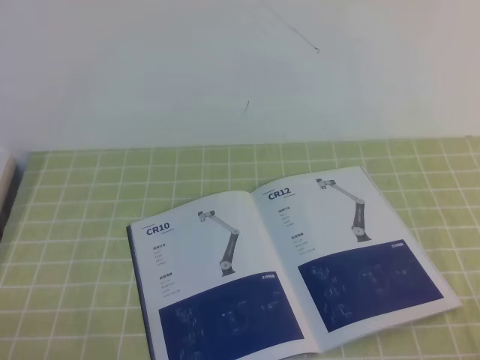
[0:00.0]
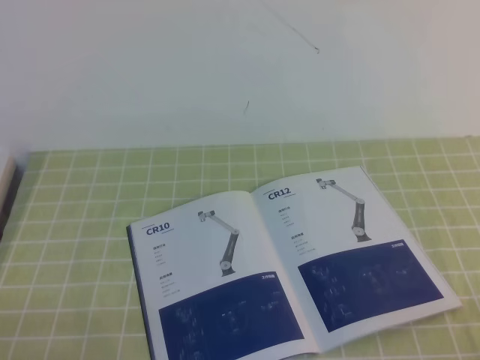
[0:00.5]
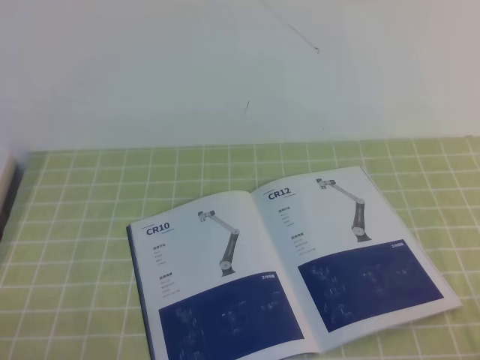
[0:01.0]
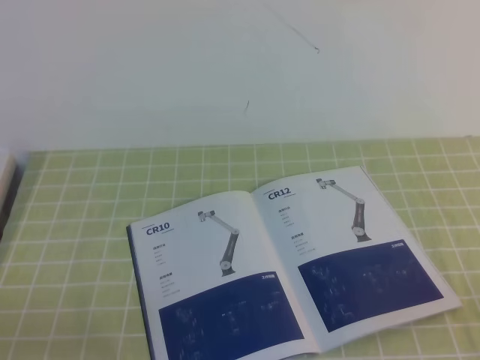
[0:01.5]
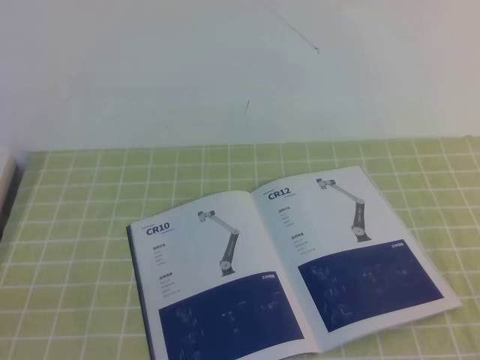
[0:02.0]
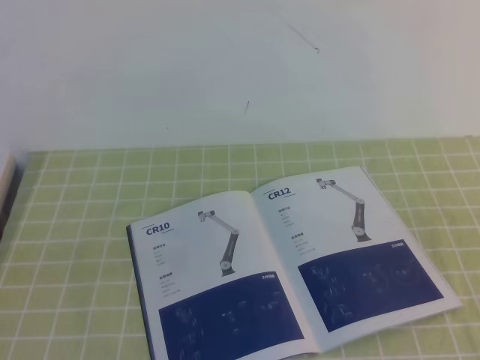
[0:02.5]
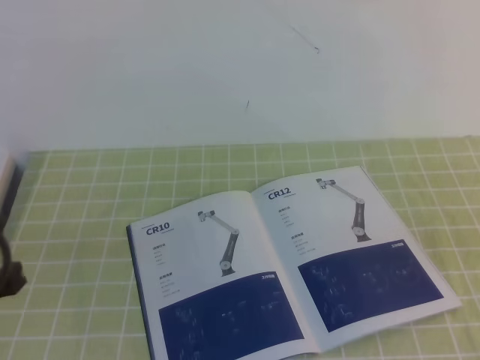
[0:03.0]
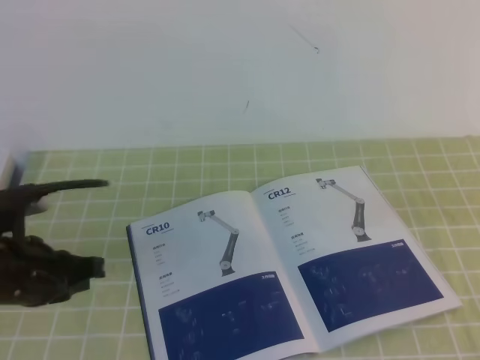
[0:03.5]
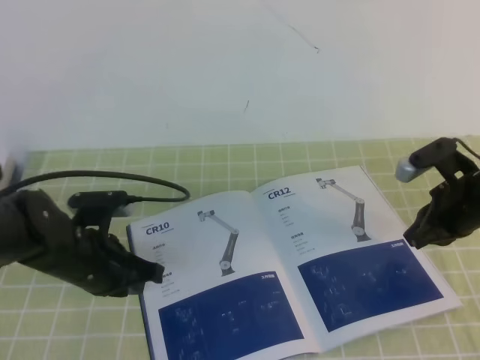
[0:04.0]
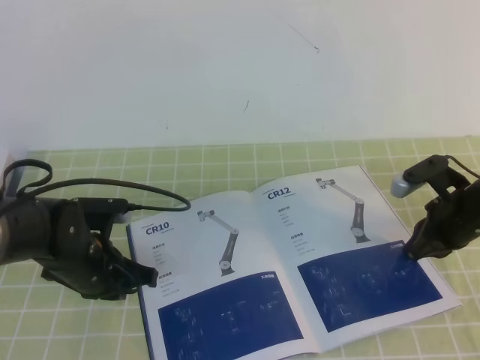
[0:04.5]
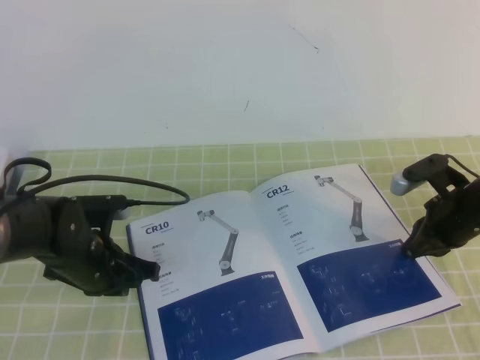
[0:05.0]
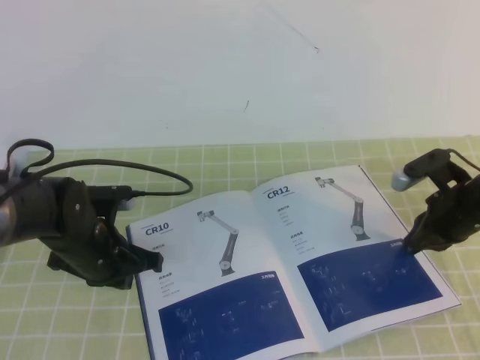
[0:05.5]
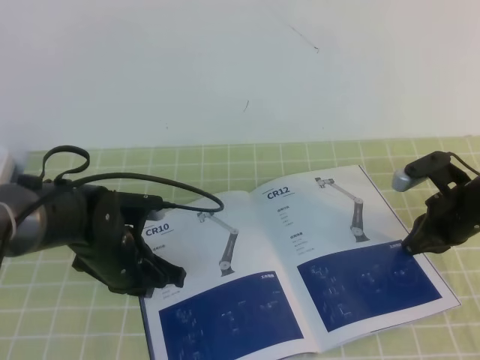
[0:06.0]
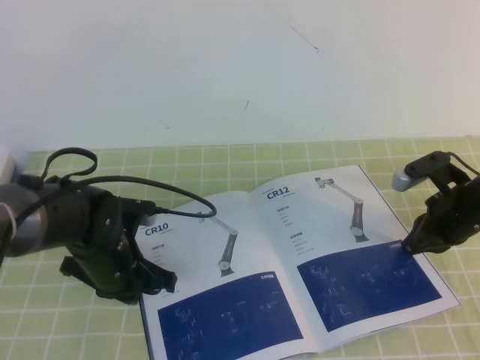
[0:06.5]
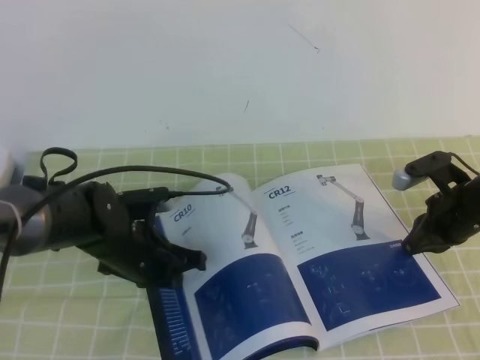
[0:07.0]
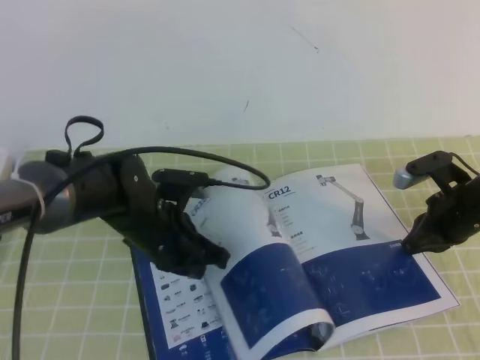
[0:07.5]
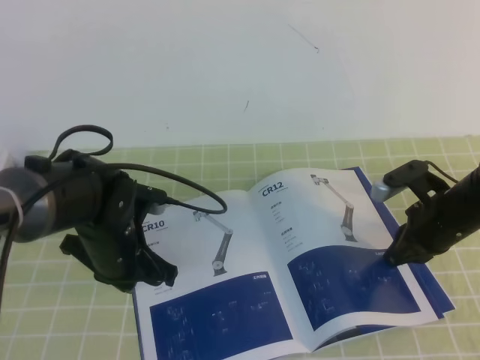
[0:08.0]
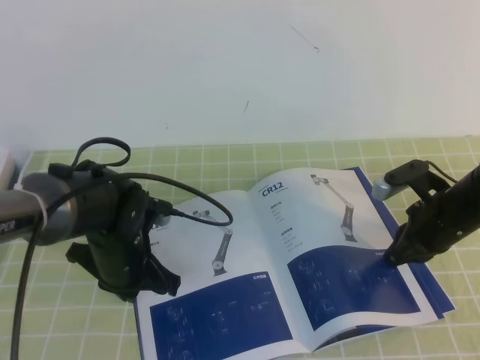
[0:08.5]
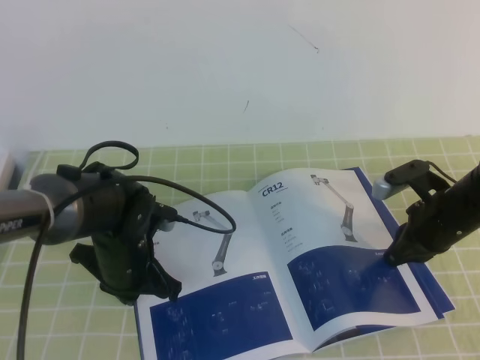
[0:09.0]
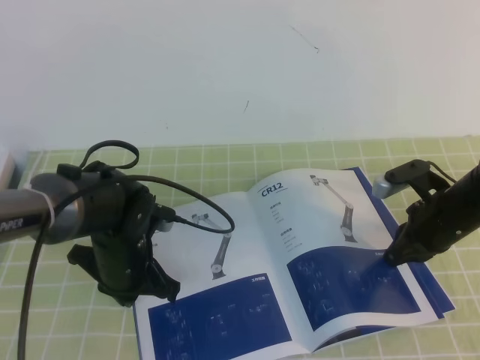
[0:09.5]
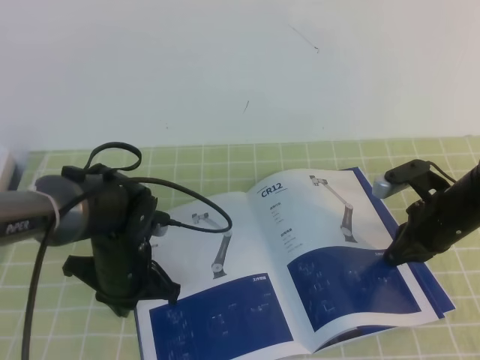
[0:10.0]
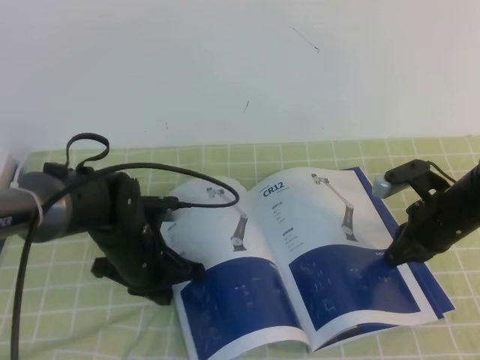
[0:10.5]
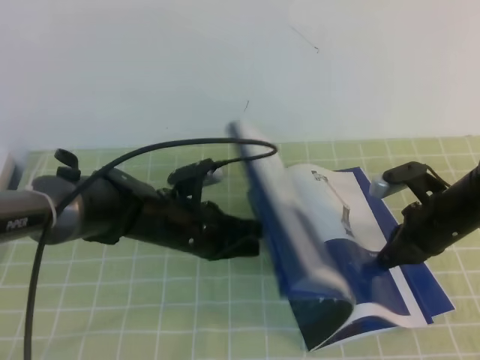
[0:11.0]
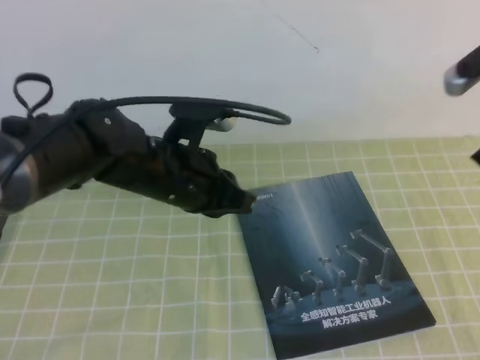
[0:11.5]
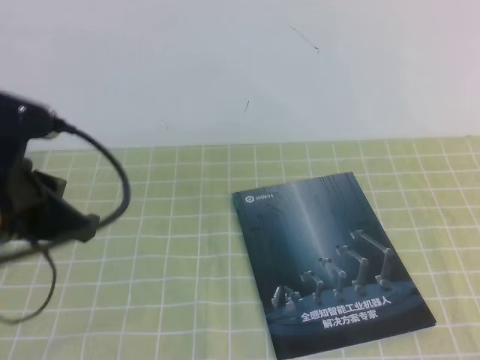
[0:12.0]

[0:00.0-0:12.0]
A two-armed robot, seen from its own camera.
Task of the whole recording: on the green tablecloth, hold the book with one hand and close it with the other.
0:02.0 to 0:04.0: Both grippers travel together forward, some 30 cm.
0:04.0 to 0:06.0: The grippers make only small movements.
0:06.0 to 0:10.0: The grippers move only a little.
0:10.0 to 0:12.0: The grippers both shift upward and backward by some 25 cm.

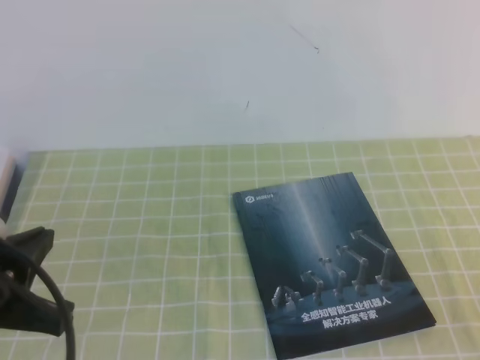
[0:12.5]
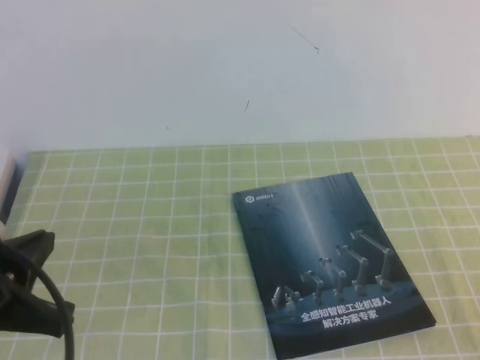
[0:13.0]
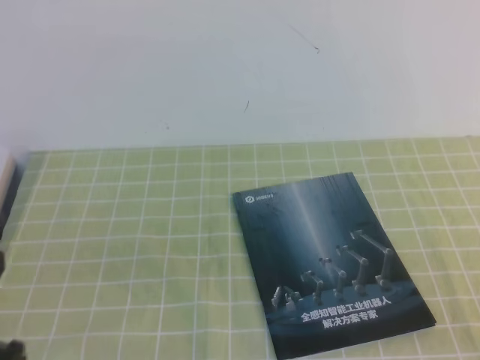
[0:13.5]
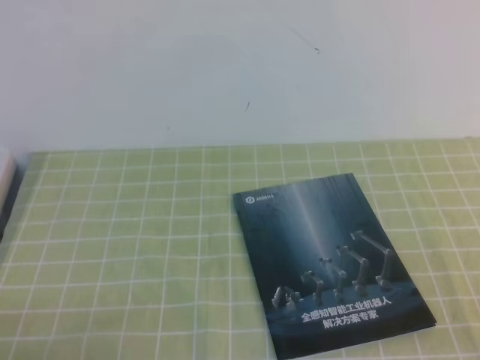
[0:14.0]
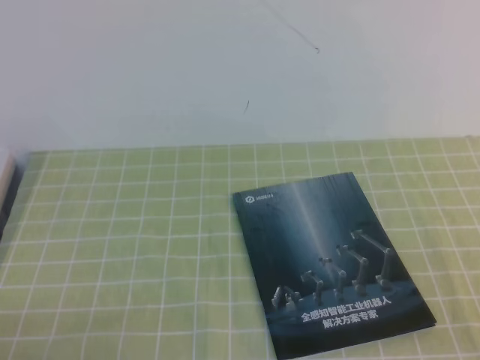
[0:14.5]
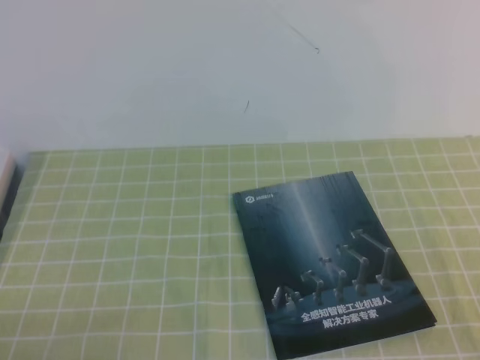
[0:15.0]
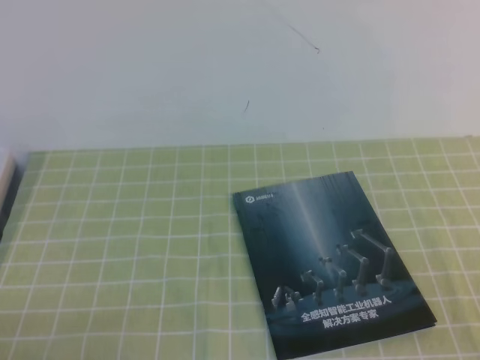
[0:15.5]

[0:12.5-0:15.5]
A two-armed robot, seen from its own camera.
Task of the whole recording: on the green tablecloth, hold the book with one hand and close it with the other.
Step, 0:12.5 to 0:15.5: Close the open book.
0:12.5 to 0:14.0: The left gripper heads downward and backward, covering roughly 15 cm.

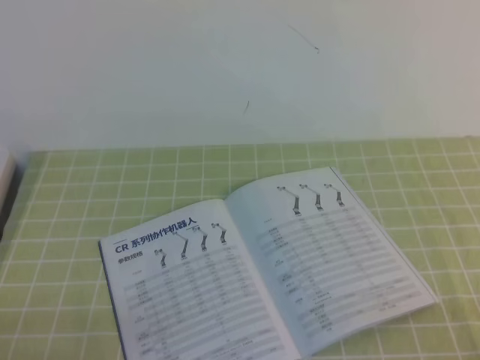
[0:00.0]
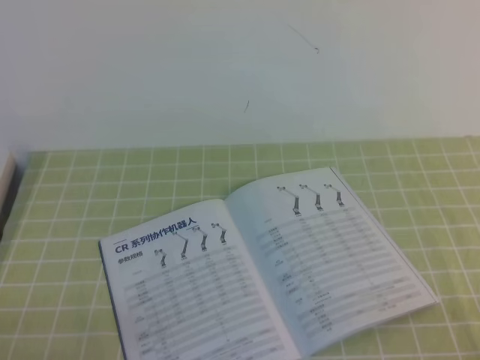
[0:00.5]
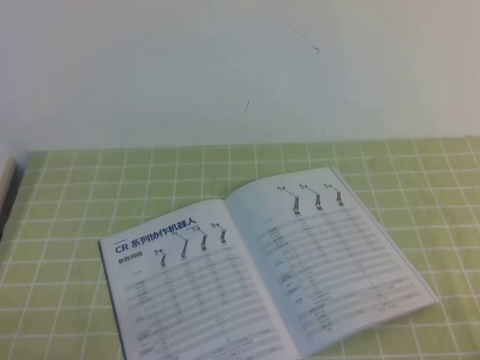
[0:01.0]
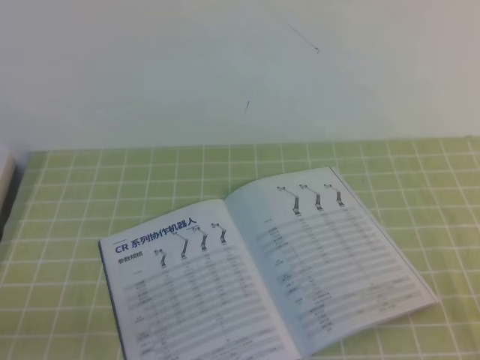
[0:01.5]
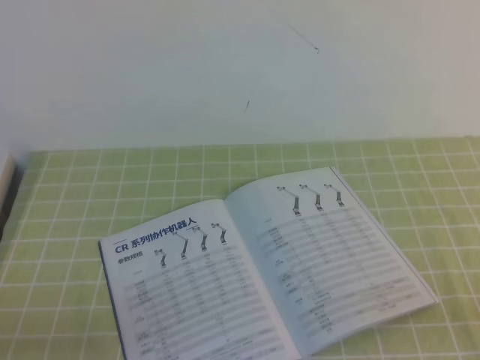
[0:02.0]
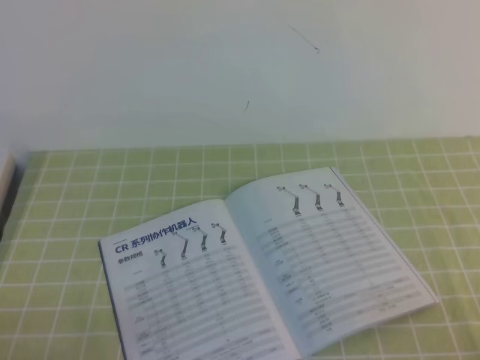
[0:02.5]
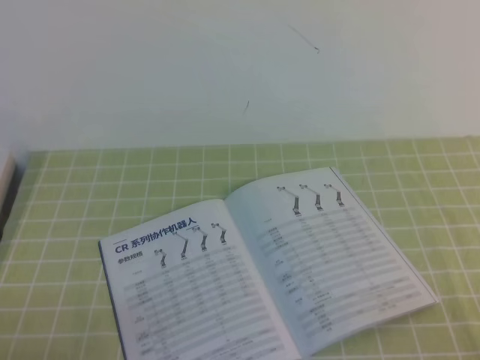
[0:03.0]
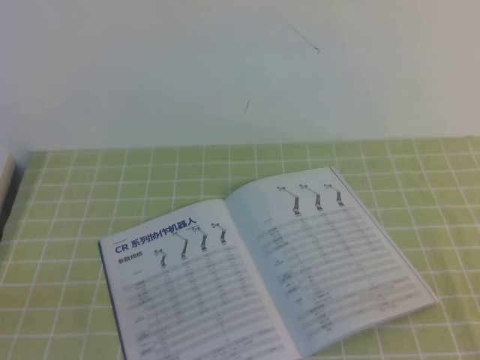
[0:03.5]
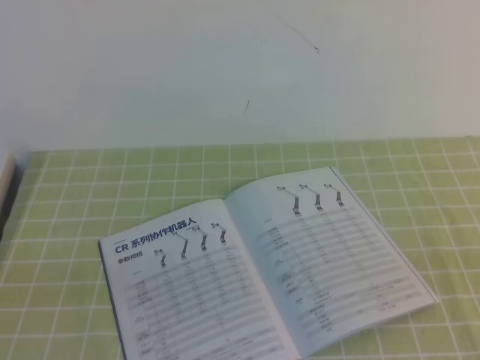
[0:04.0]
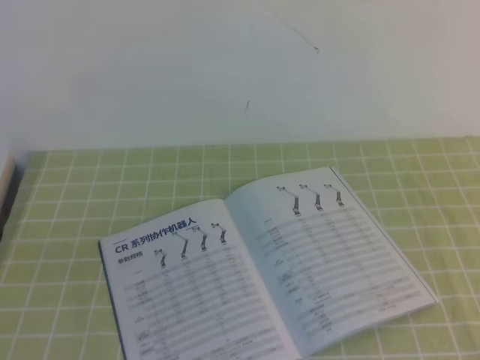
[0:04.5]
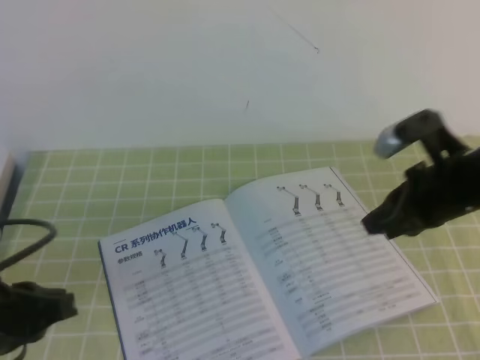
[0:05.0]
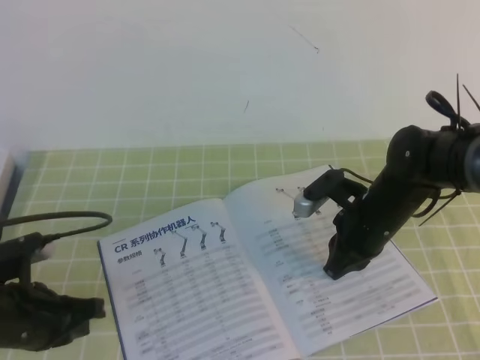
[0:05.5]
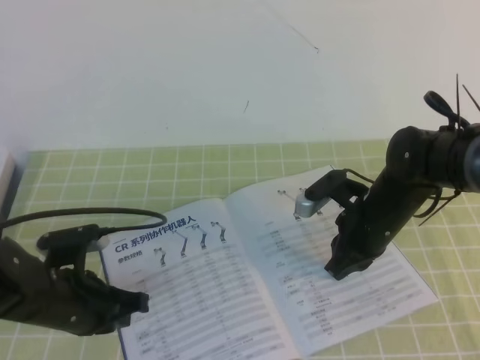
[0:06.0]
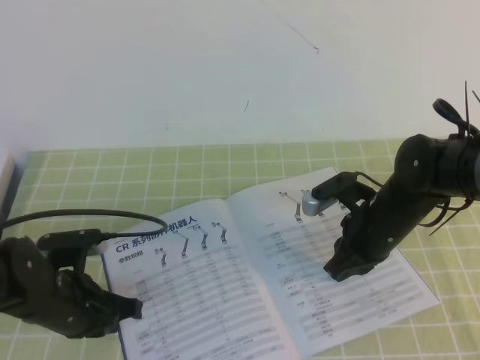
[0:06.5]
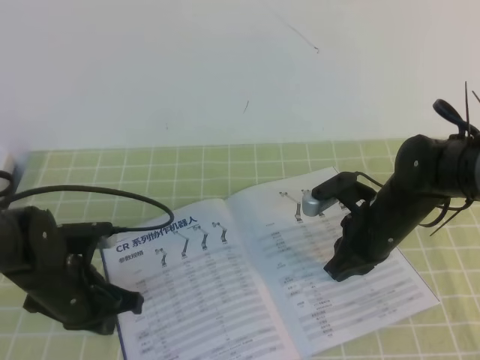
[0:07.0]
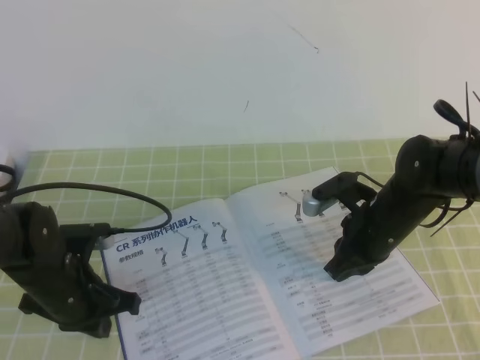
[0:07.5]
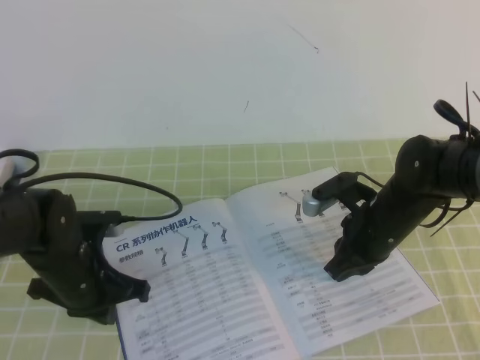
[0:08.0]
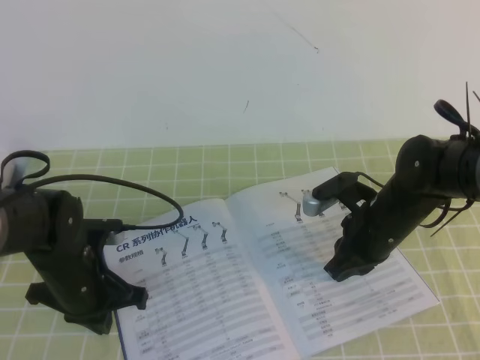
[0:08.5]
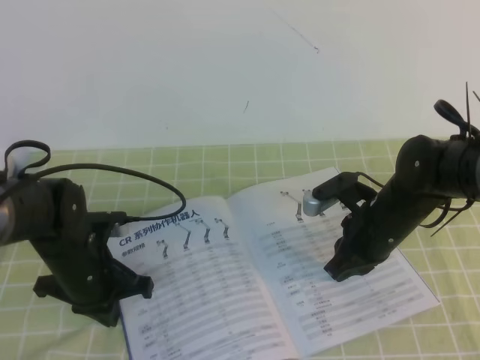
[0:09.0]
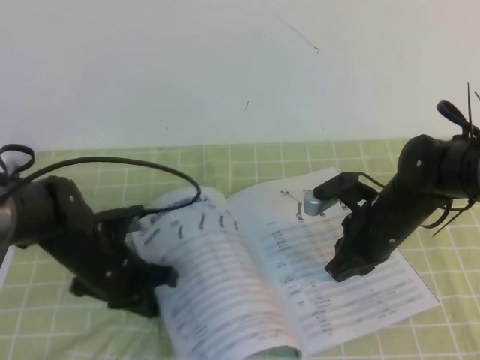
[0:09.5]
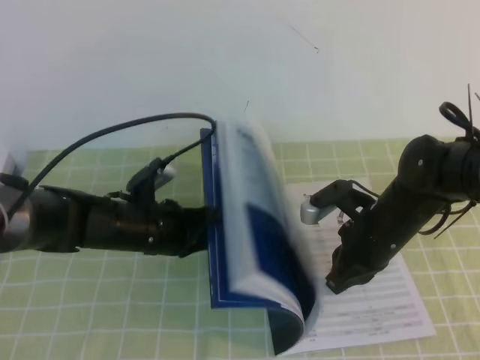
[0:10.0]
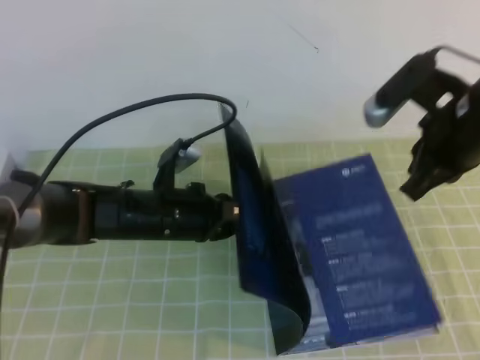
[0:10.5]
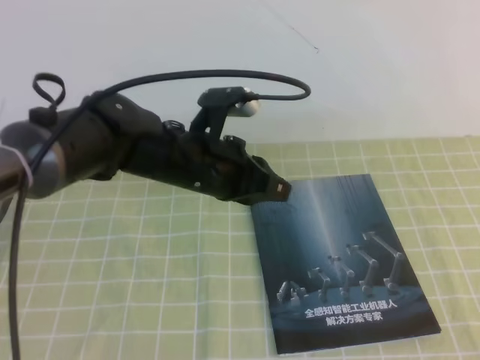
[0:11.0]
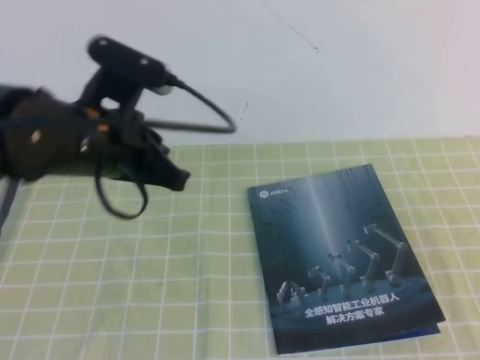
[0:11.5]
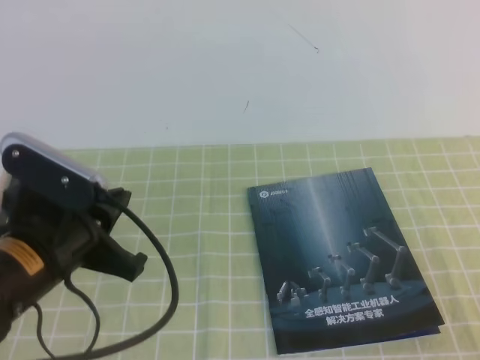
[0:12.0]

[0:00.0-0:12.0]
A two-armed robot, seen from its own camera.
Task of the whole recording: on the green tablecloth, hold the book with one hand and close it with the other.
0:04.0 to 0:06.0: The right gripper travels forward, to the left and downward by roughly 40 cm. The left gripper heads forward and downward, covering roughly 25 cm.
0:06.0 to 0:08.0: The grippers make only small movements.
0:08.0 to 0:10.0: The left gripper moves to the right, some 5 cm.
0:10.0 to 0:12.0: The right gripper shifts roughly 35 cm backward, to the right and upward. The left gripper travels upward, backward and to the left by some 20 cm.
